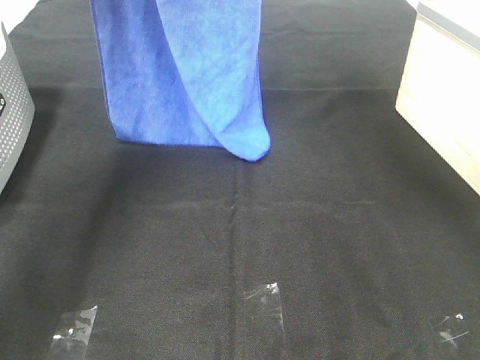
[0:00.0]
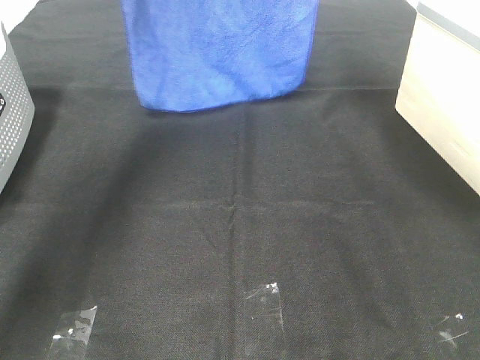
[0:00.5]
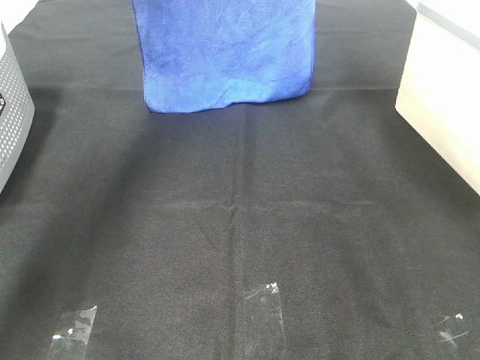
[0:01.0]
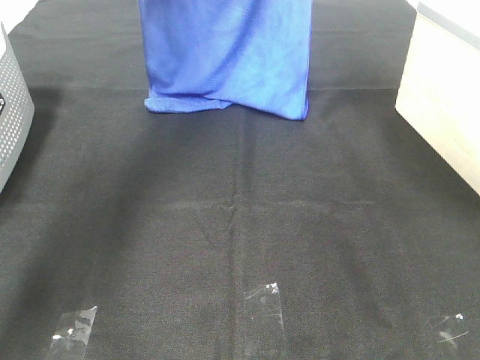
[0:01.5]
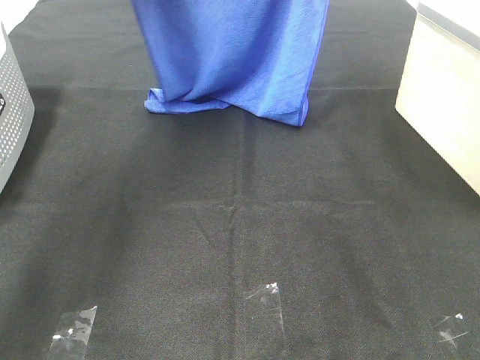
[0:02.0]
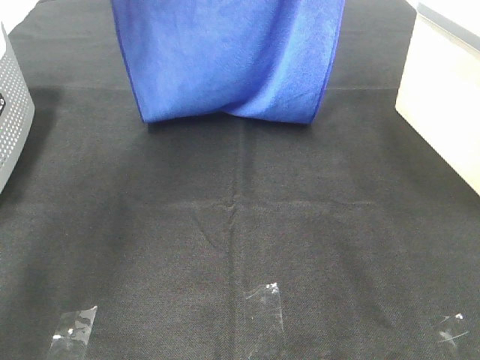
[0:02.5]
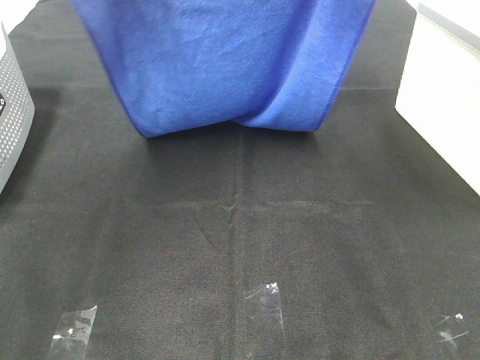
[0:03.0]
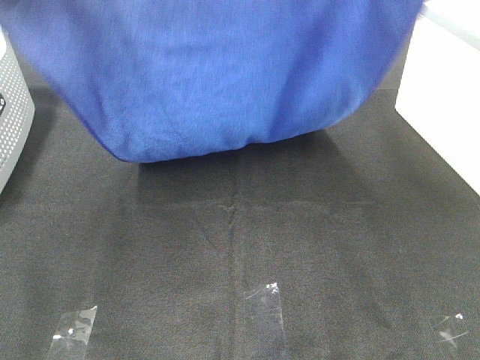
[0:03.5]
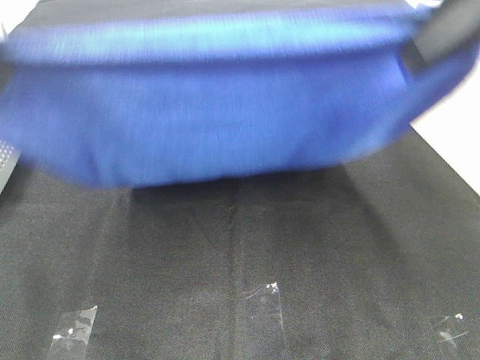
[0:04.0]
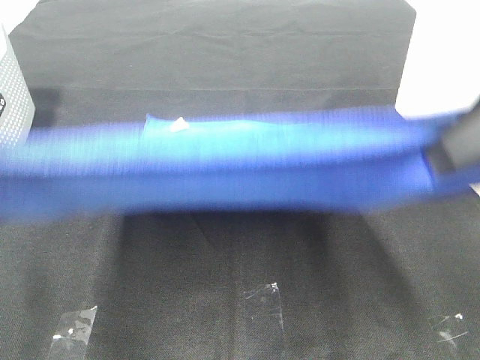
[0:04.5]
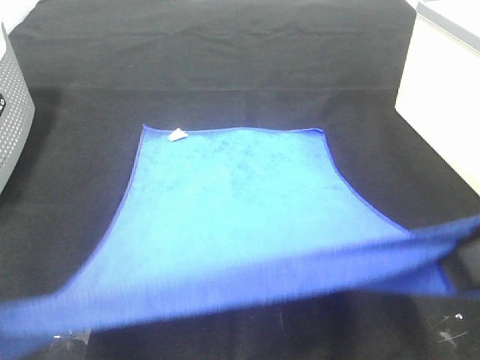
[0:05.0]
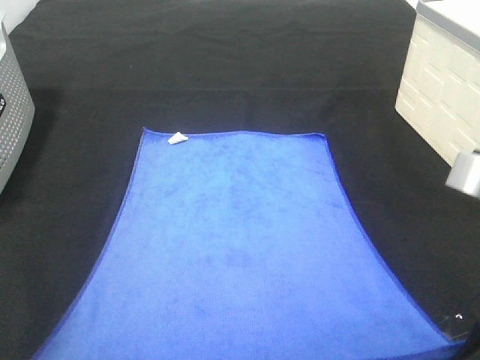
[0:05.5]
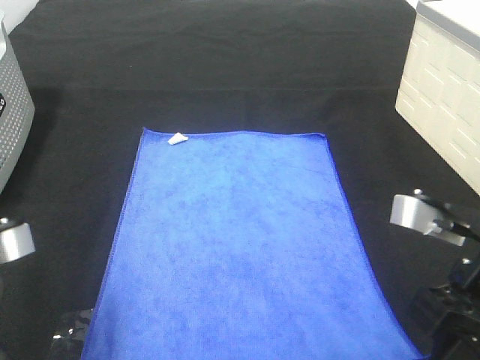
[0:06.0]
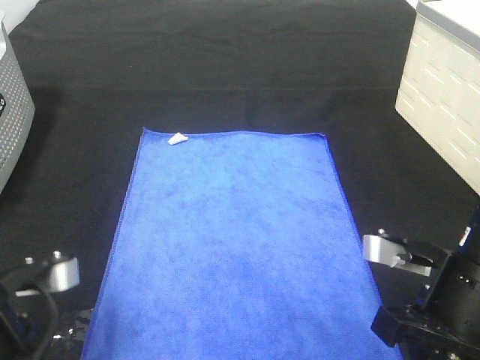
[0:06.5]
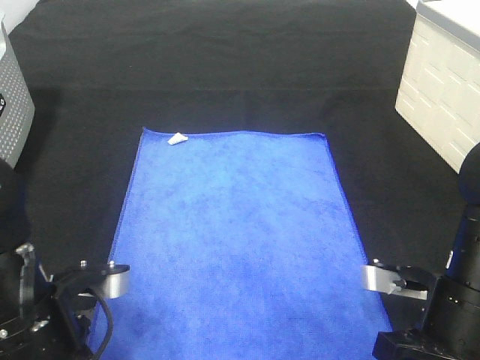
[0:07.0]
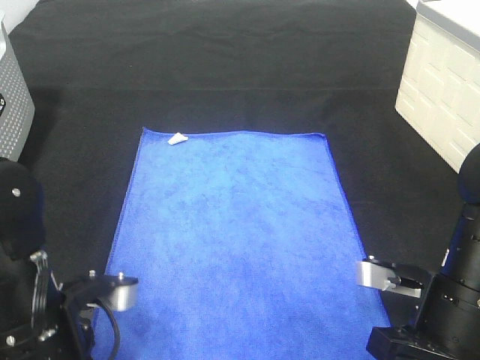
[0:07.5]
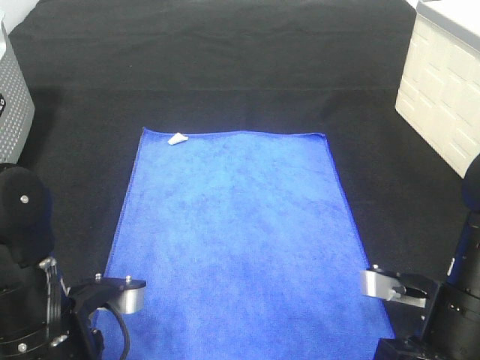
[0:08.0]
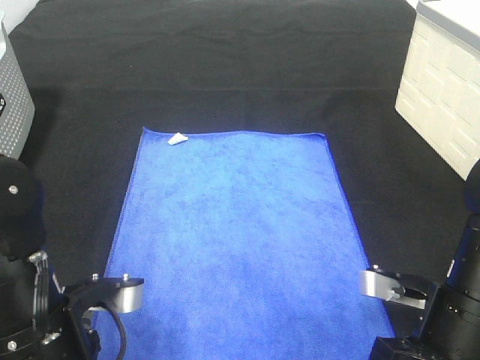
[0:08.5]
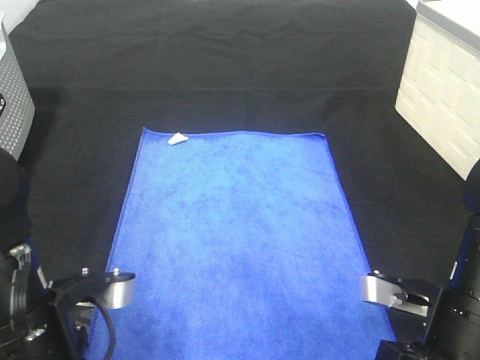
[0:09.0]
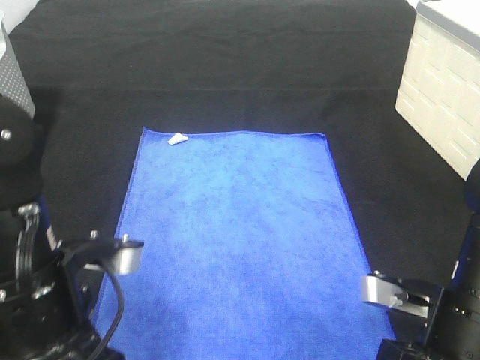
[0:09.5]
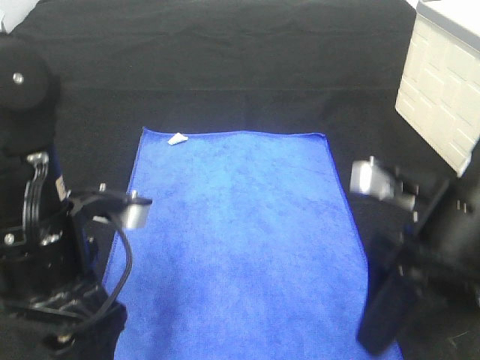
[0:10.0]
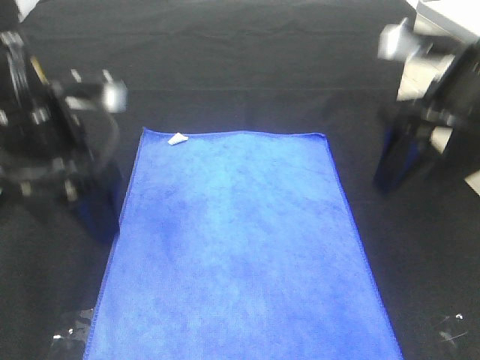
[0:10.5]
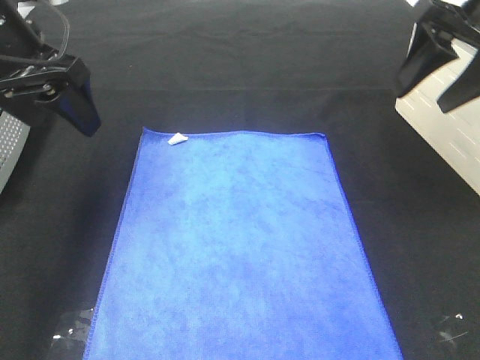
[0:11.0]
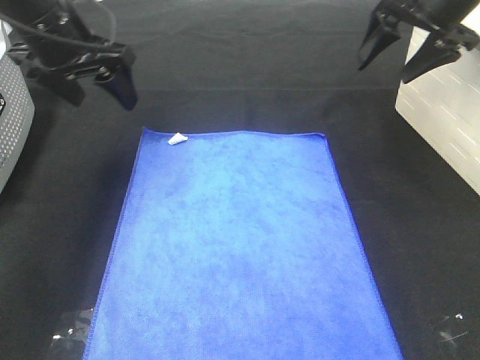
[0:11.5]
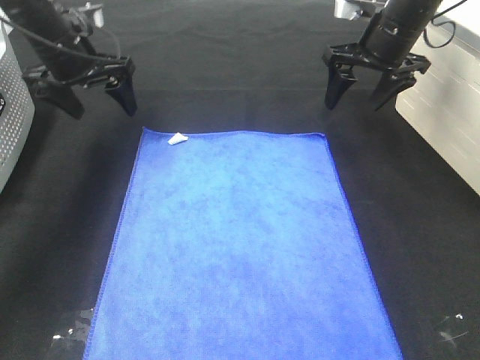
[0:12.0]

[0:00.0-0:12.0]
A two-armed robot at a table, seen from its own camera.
Task of the whole recording: Remove the towel and place it.
Step, 0:00.0 to 0:03.5: Left hand: spread the blue towel flat on the table.
Step, 0:00.0 to 0:03.5: Right hand: spread the blue towel flat on the table.
Step, 0:04.0 to 0:11.5: Left hand:adjust the blue towel.
Step, 0:04.0 to 0:11.5: Right hand:adjust the blue towel.
0:00.0 to 0:02.0: The right gripper travels to the right by some 5 cm.
0:02.0 to 0:04.0: Both grippers travel together backward, some 25 cm.
0:04.0 to 0:06.0: Both grippers travel together downward, approximately 20 cm.
0:06.0 to 0:08.0: The right gripper is displaced downward by some 10 cm; the left gripper is displaced downward and to the right by roughly 10 cm.
0:08.0 to 0:10.0: Both grippers travel together upward, roughly 10 cm. The right gripper opens its fingers, while the left gripper opens its fingers.
0:10.0 to 0:12.0: The grippers both shift forward by some 30 cm.

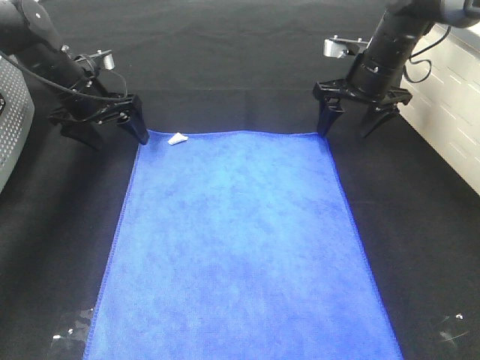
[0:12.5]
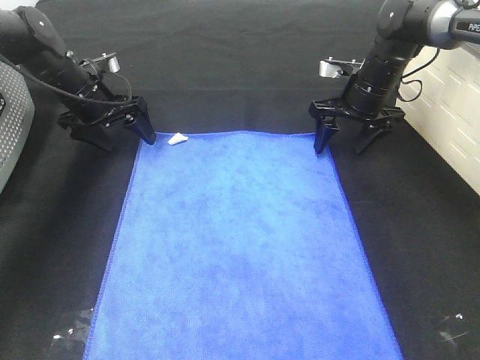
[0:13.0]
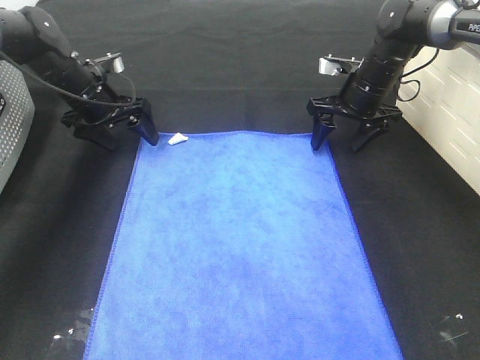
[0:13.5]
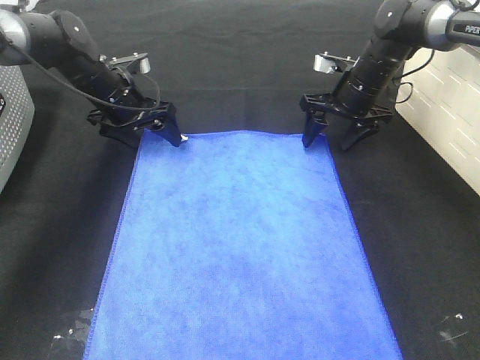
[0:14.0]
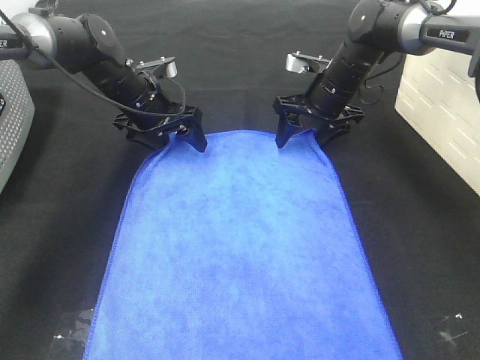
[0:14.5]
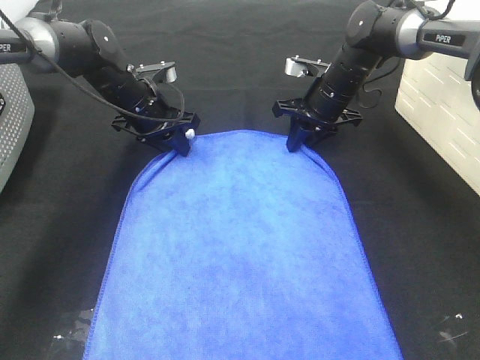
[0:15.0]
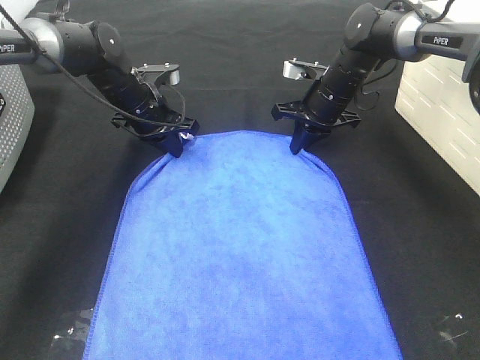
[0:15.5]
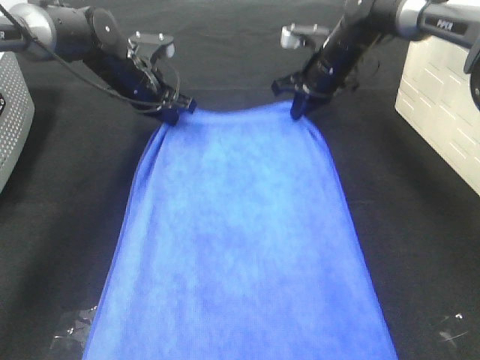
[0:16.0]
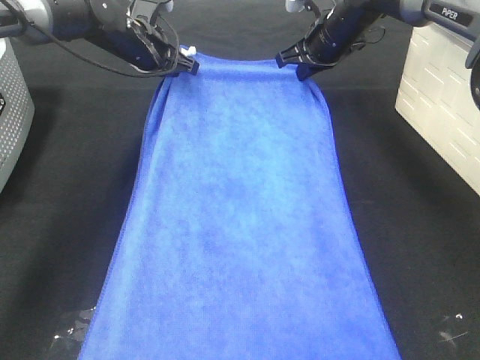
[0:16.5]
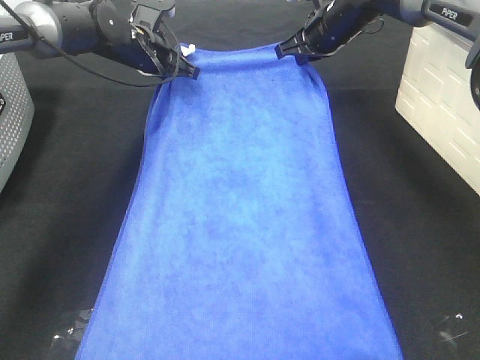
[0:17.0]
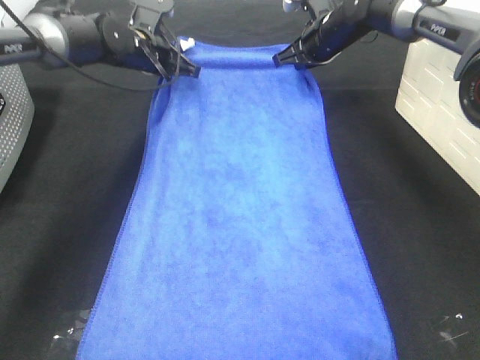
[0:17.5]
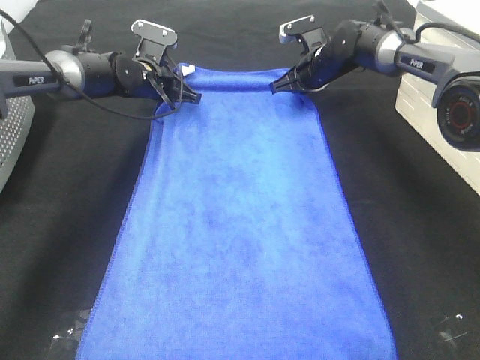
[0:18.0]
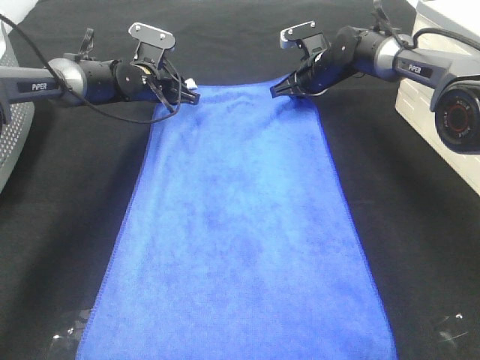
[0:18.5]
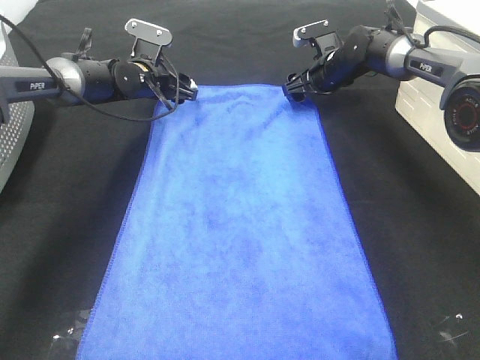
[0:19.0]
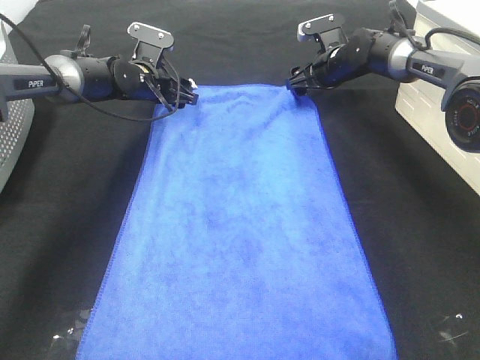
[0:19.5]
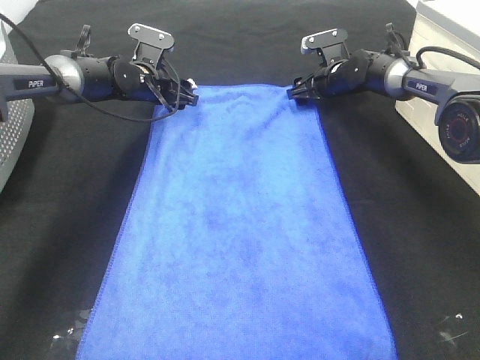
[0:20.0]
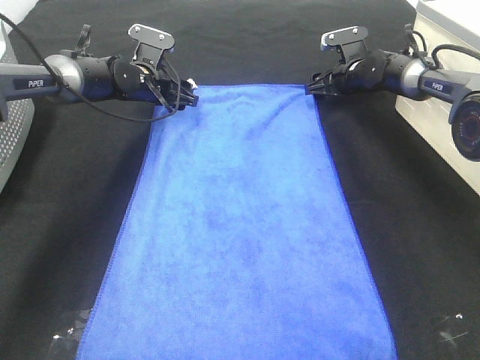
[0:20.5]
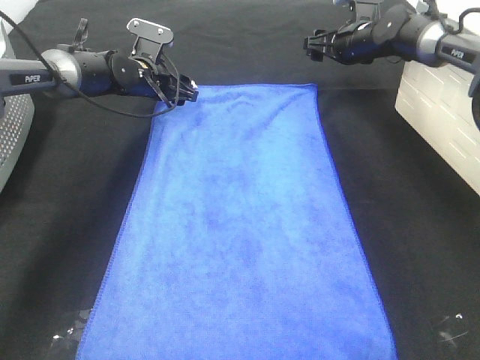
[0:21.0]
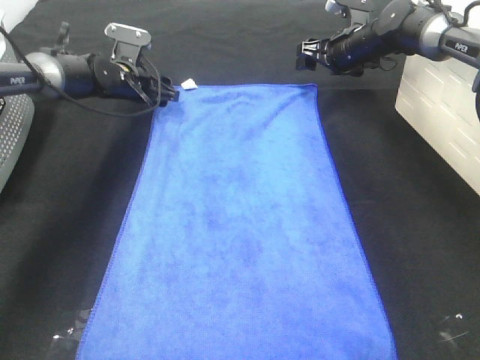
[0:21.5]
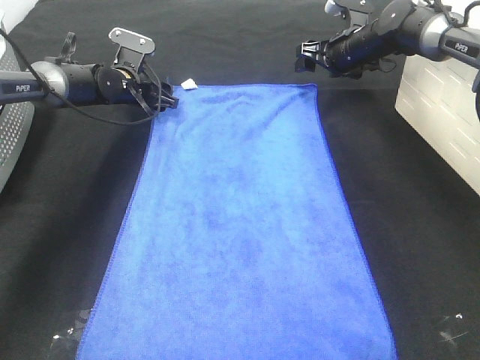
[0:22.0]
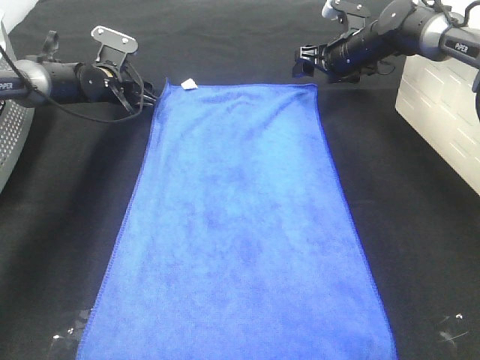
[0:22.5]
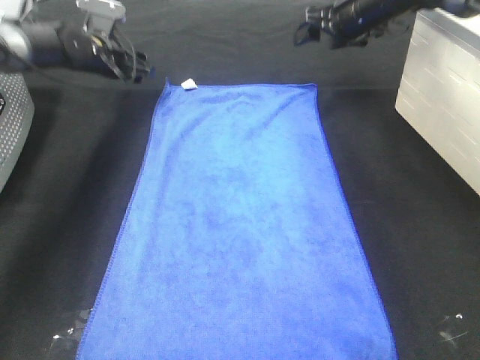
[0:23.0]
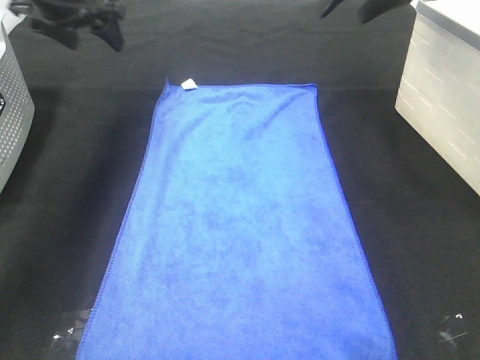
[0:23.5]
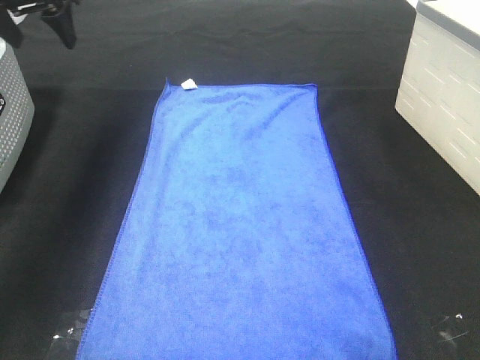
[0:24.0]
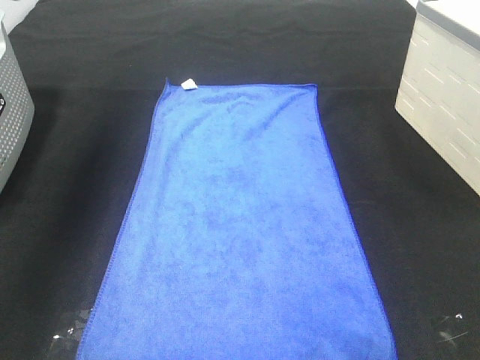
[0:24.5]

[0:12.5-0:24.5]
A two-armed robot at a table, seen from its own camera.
Task of the whole recording: Remove the towel and place it.
0:12.5 to 0:14.5: The left gripper moves to the right, some 10 cm. The right gripper shifts roughly 5 cm to the left.
0:14.5 to 0:16.5: The grippers both shift upward by some 5 cm. The left gripper closes its fingers, while the right gripper closes its fingers.
0:16.5 to 0:18.5: Both grippers travel together downward, about 10 cm. The left gripper opens up.
0:18.5 to 0:20.5: The right gripper is displaced to the right by about 5 cm, and opens up.
0:20.5 to 0:22.5: The right gripper shifts some 5 cm upward, while the left gripper travels to the left by approximately 5 cm.
0:22.5 to 0:24.5: Both grippers travel together upward and backward, some 35 cm.

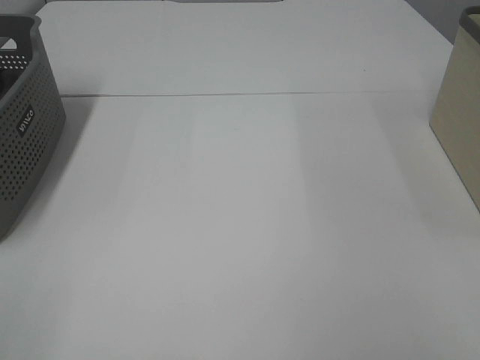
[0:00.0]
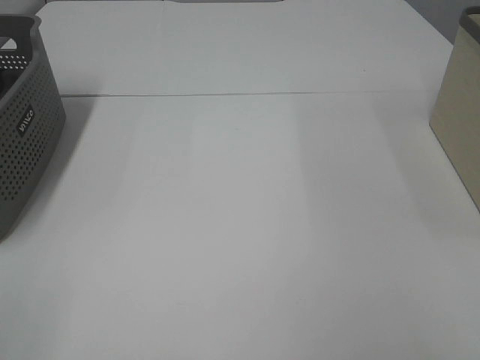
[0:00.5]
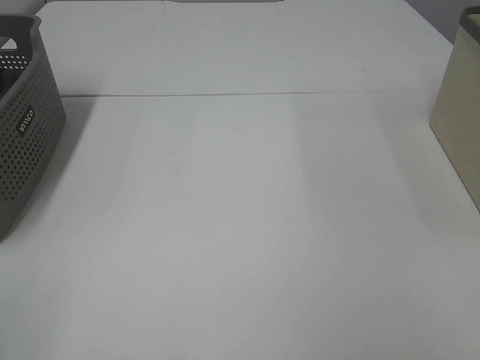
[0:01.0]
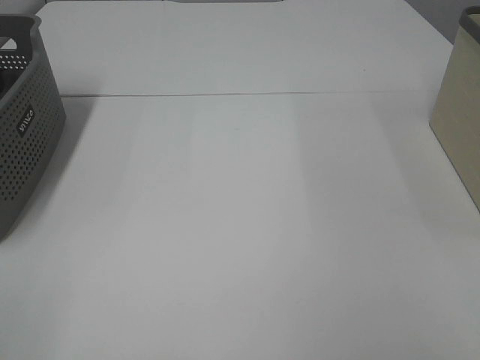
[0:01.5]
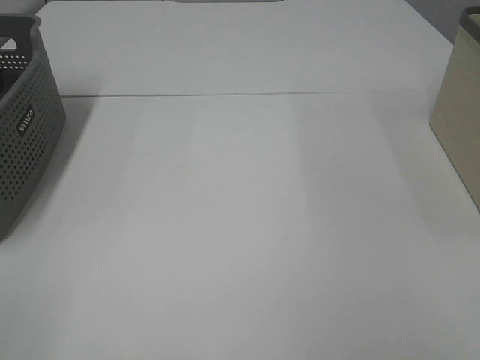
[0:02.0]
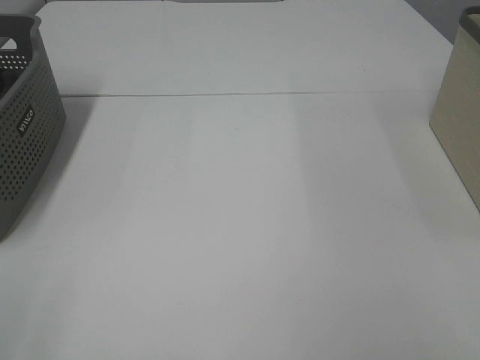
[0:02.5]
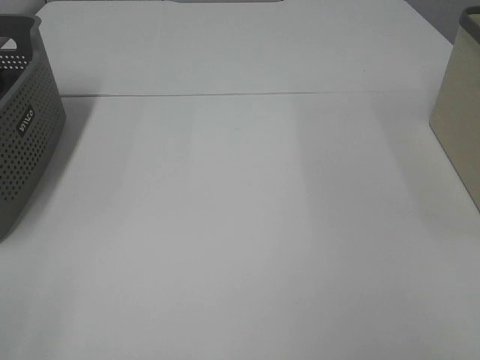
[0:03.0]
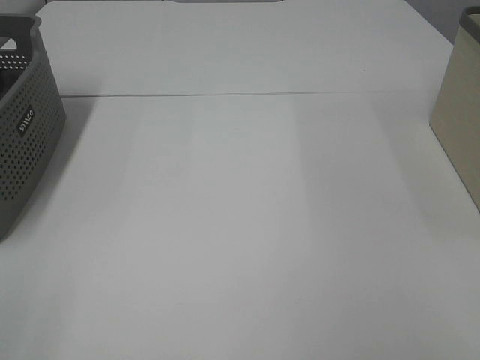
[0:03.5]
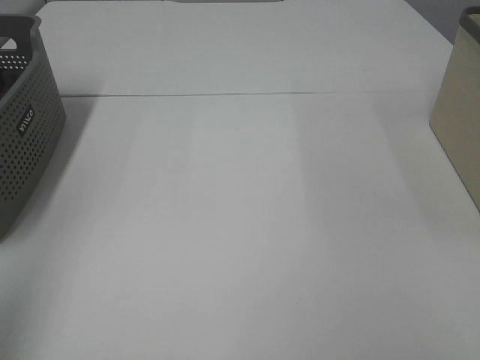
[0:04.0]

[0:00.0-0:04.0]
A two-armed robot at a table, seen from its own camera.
Task of the whole recording: Remove the towel and place it.
0:00.0 to 0:02.0: Both grippers stay about where they are.
